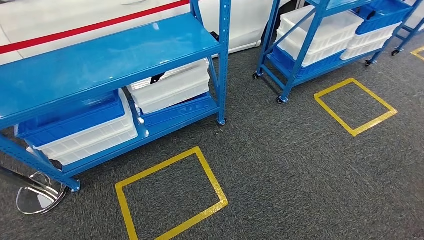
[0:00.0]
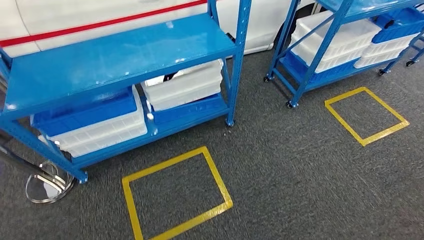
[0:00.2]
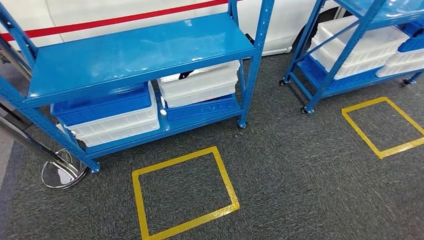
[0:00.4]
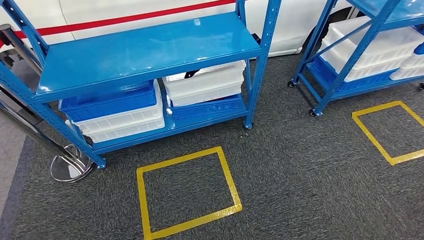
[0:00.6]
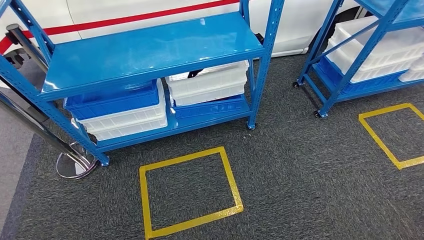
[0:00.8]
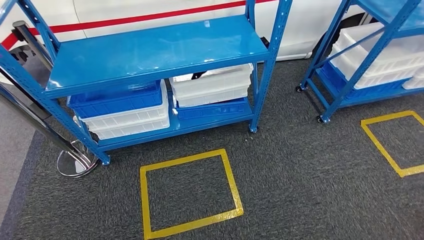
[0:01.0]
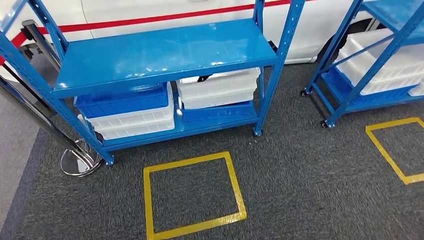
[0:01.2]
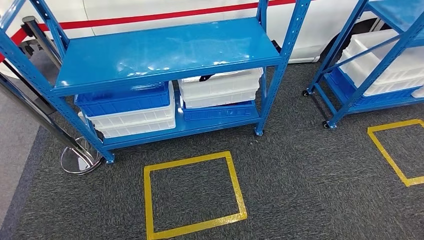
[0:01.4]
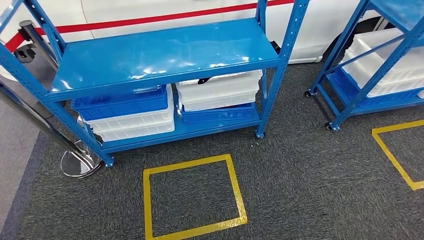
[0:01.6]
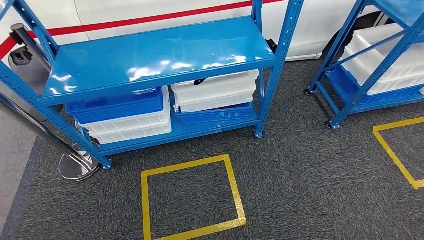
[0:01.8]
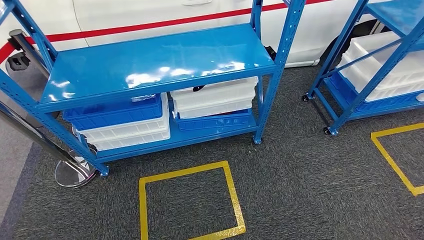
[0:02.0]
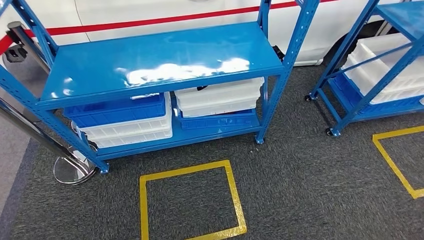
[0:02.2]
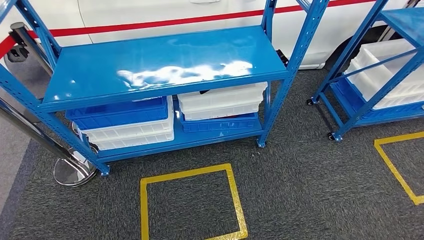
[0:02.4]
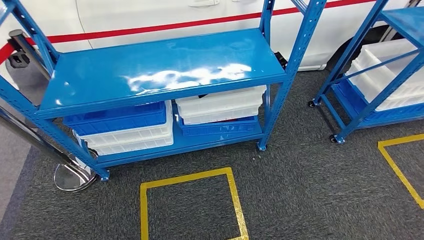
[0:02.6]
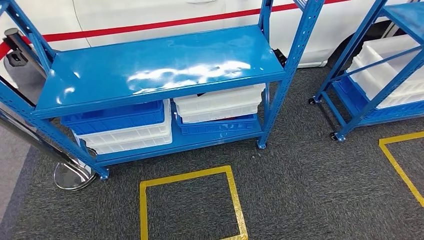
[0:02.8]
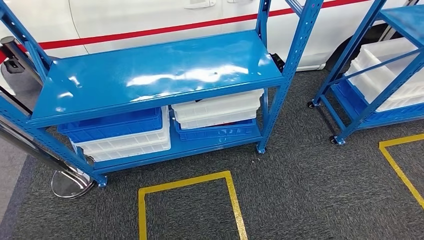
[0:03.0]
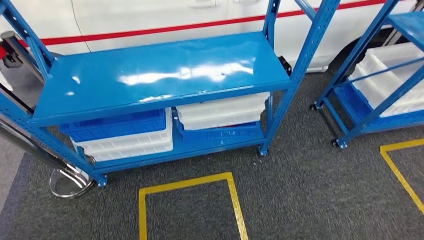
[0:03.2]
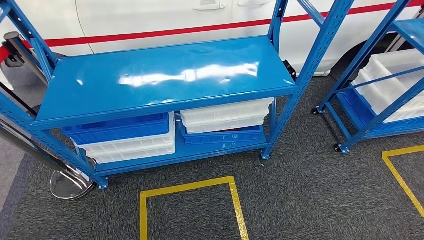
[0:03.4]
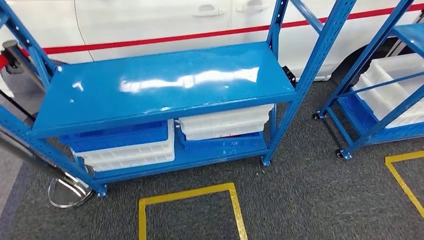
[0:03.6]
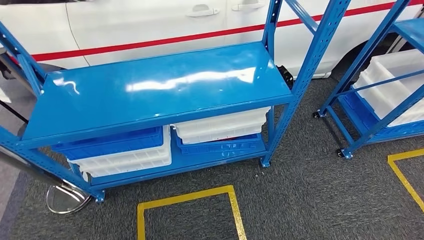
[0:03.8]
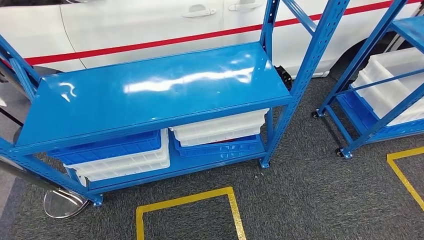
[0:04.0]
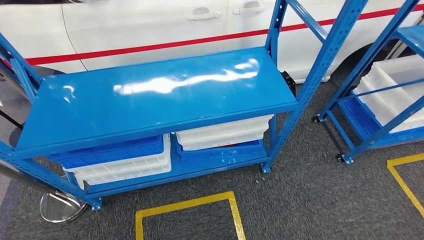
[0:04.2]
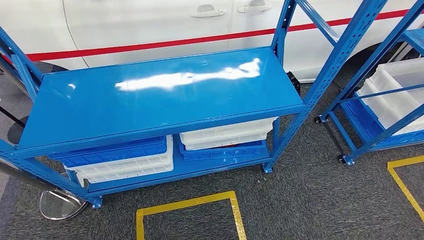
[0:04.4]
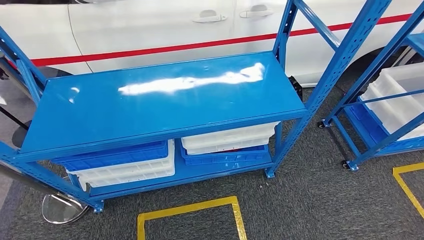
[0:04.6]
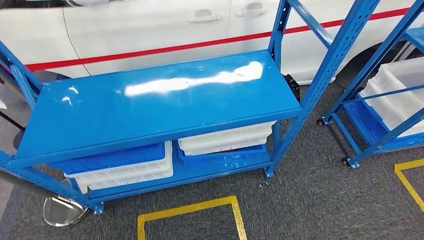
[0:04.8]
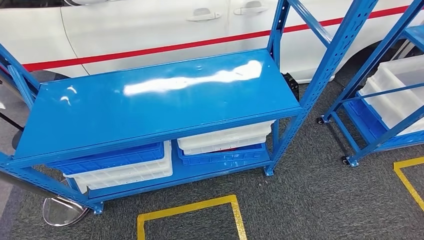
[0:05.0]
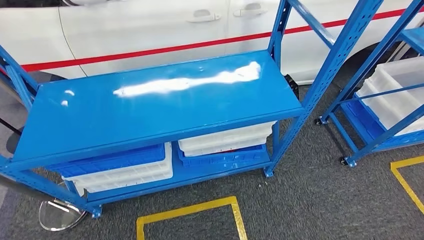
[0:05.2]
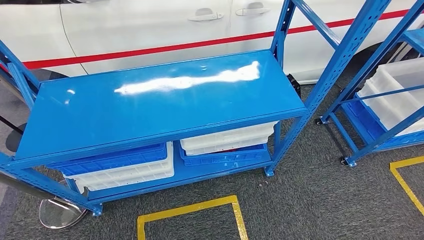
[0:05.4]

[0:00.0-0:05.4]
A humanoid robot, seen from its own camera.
Step, 0:00.0 to 0:05.4: Return to the initial position at the shelf.
